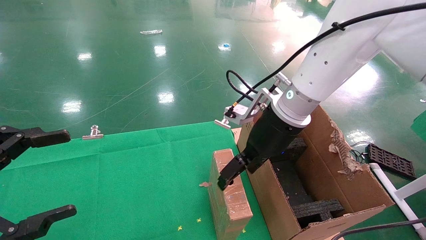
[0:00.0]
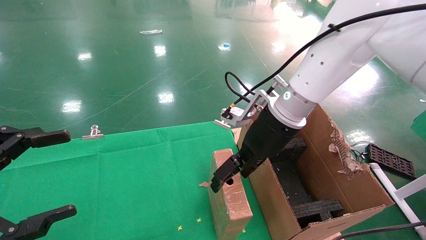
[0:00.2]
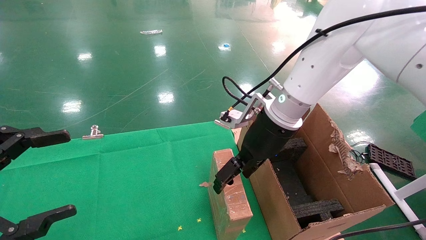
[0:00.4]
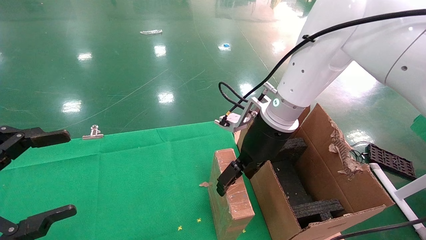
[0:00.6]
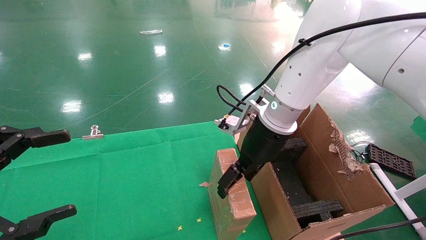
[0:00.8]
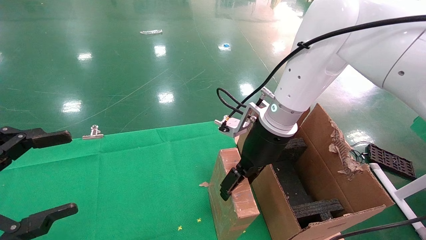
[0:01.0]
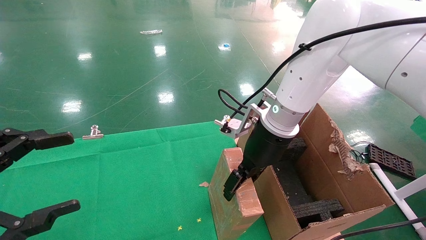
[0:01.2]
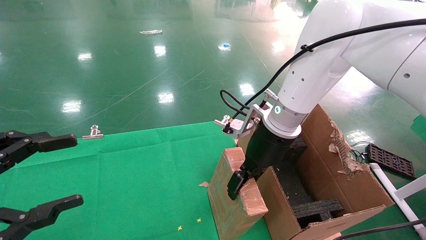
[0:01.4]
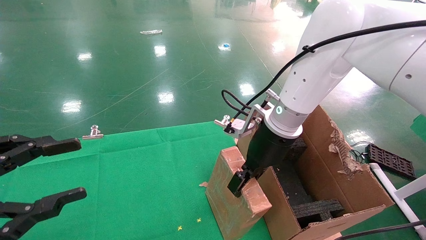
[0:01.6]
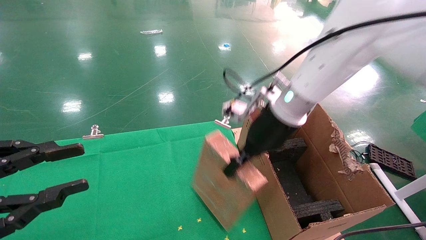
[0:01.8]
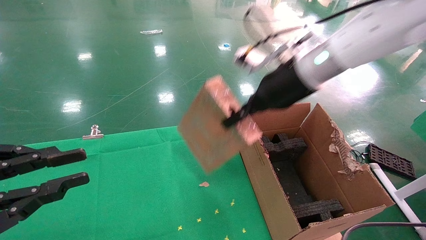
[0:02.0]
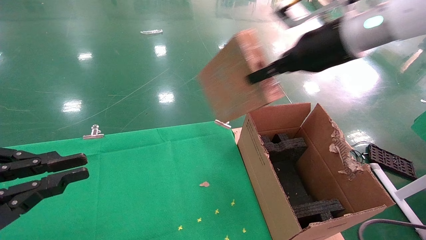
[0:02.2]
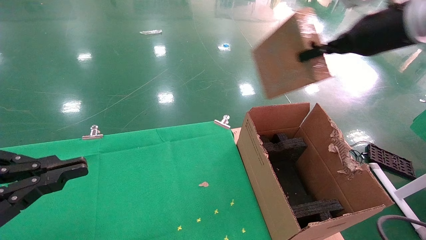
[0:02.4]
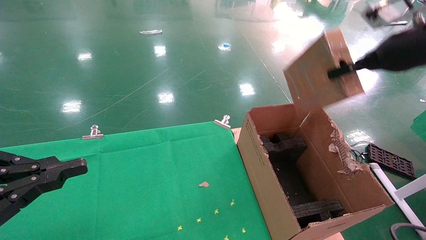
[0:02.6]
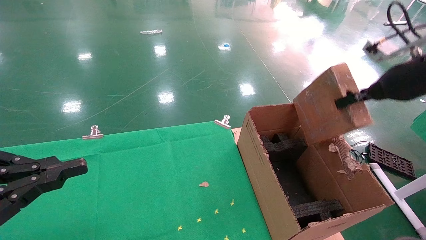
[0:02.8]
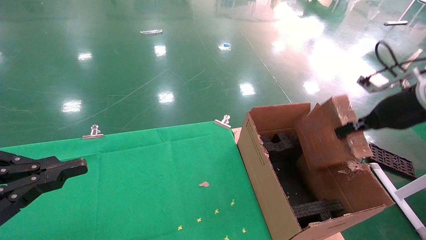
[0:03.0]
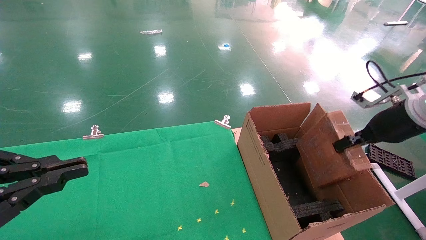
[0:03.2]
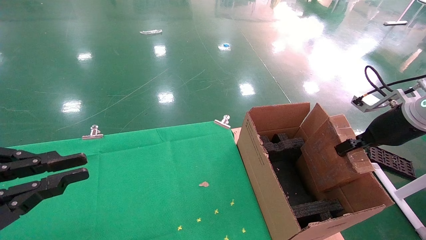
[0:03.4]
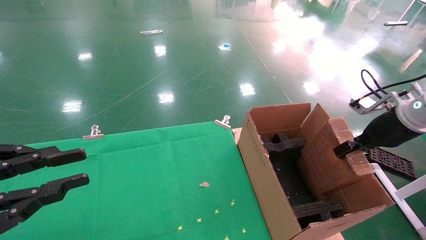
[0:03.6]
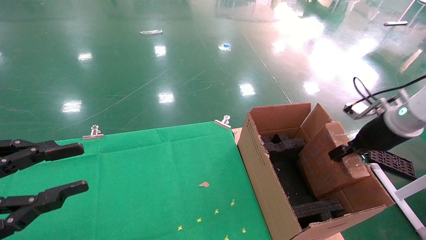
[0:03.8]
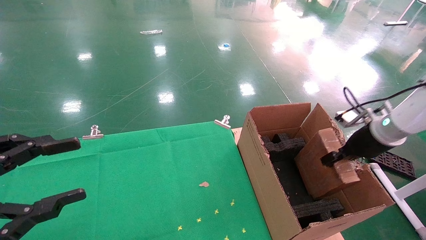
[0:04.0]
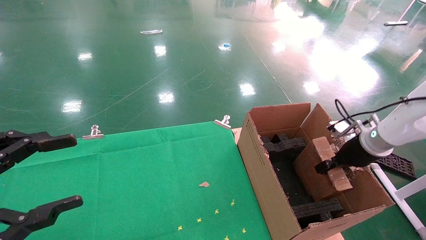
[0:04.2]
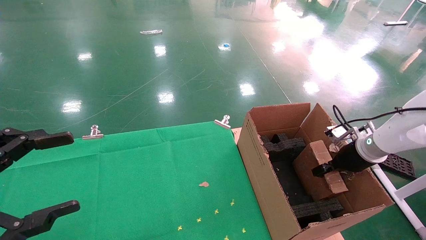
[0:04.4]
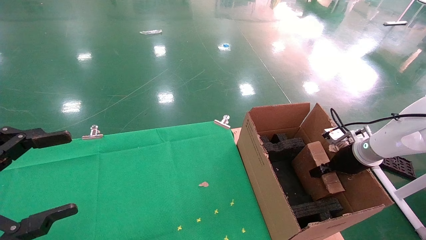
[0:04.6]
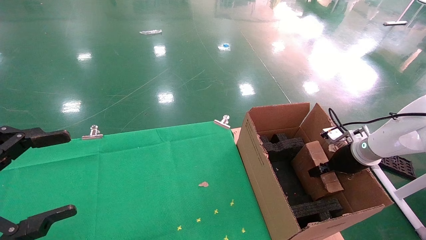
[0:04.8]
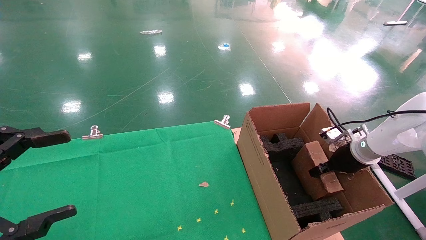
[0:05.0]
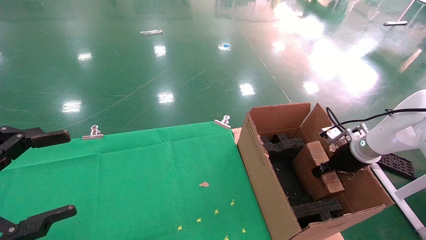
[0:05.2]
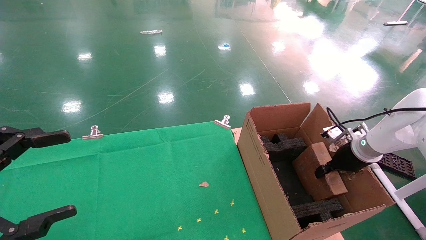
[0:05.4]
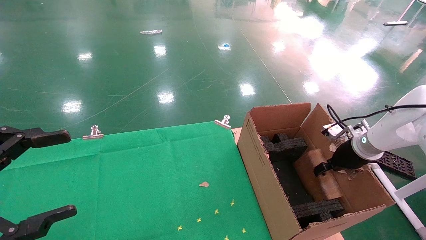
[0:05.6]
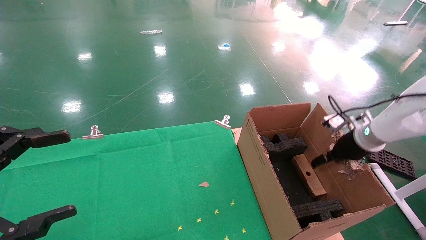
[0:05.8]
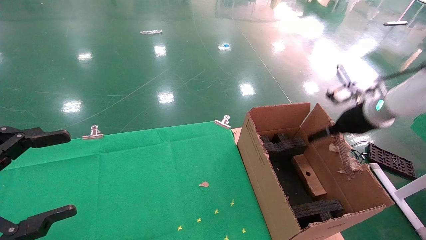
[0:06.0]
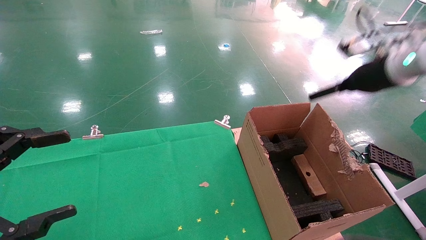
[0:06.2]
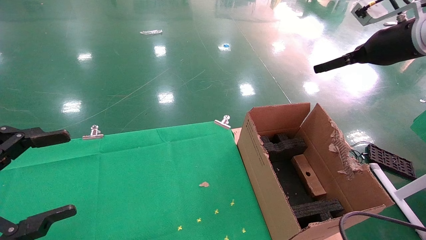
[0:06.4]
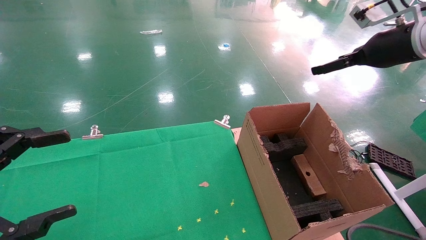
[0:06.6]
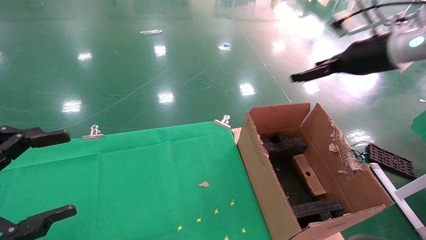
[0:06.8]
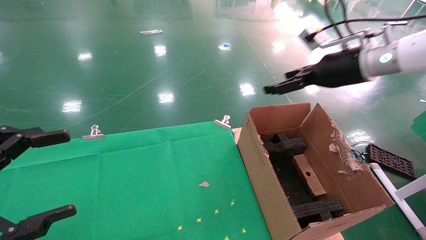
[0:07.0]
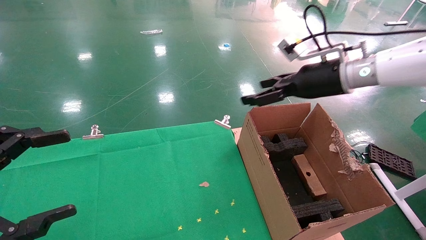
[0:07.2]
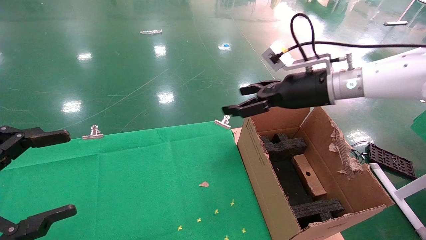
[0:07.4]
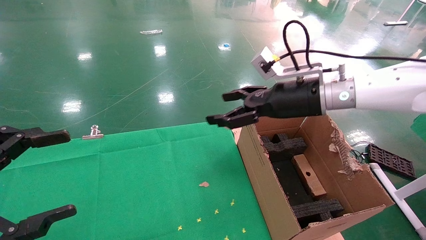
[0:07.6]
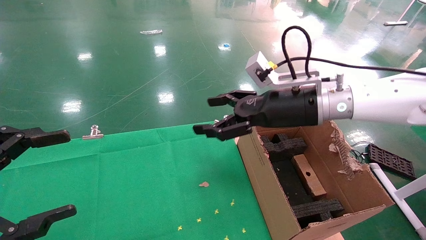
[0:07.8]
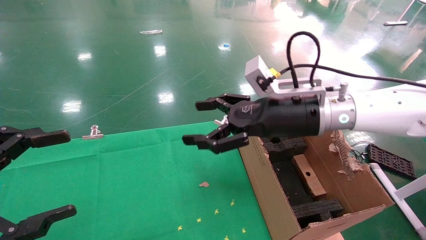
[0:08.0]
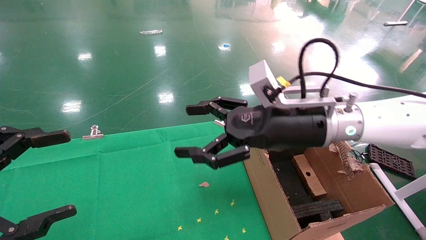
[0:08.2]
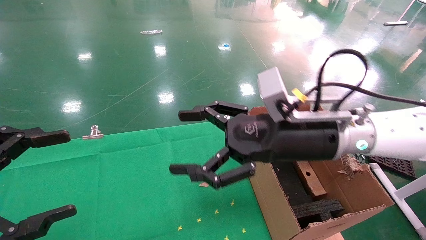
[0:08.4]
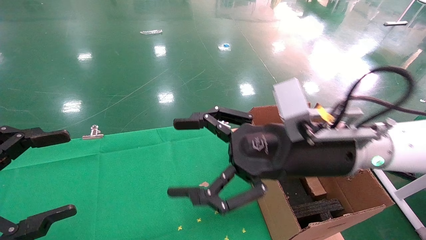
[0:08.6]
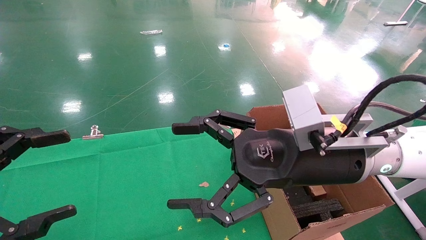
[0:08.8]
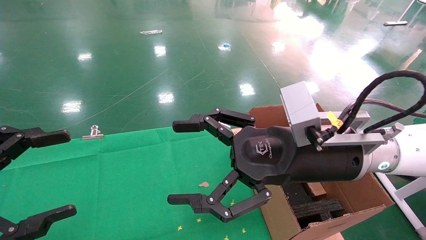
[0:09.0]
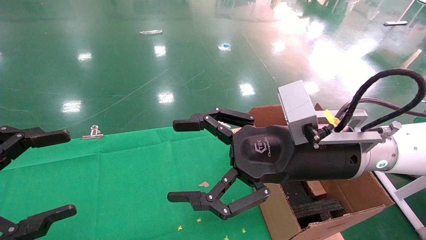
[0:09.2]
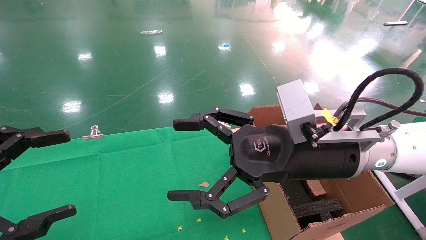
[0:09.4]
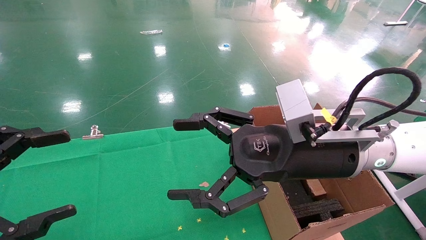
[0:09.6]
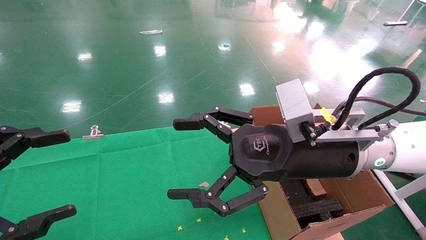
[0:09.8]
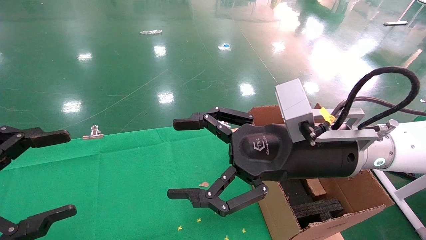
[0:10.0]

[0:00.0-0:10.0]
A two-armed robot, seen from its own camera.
Task of the whole recording: using a robotic arm to pick up a cardboard box and palace it the carton.
Step, 0:01.8 to 0:05.8: Place the mouse and the power cord paper box into the container.
0:00.0 to 0:01.4: The right gripper closes.
0:01.4 to 0:02.8: The left gripper closes. Meanwhile the right gripper travels to the right by about 25 cm, and closes its fingers.
0:02.8 to 0:04.2: The right gripper shifts approximately 20 cm downward; the left gripper opens.
0:04.2 to 0:05.8: The left gripper opens its fingers, while the right gripper opens its fingers.
0:05.8 to 0:07.2: The right gripper is displaced to the left and upward by about 20 cm, and opens.
0:07.2 to 0:08.6: The right gripper moves backward, to the left and downward, approximately 20 cm.
0:08.6 to 0:10.0: Both grippers stay put.

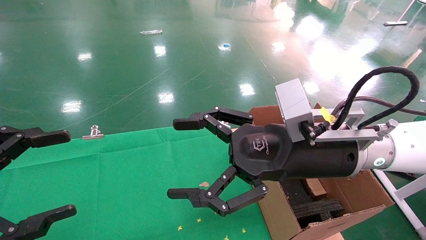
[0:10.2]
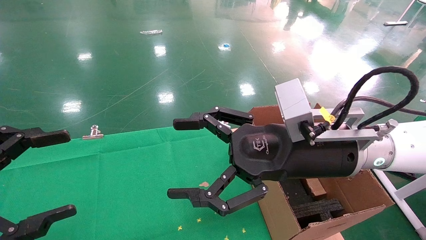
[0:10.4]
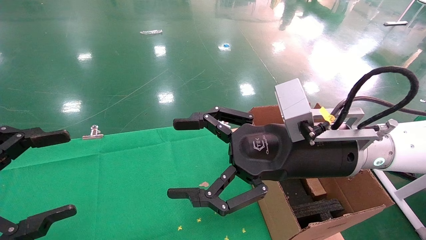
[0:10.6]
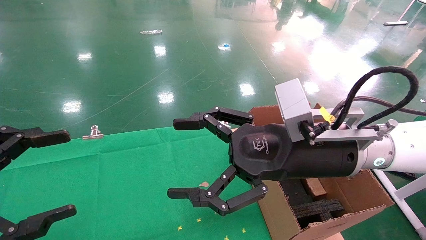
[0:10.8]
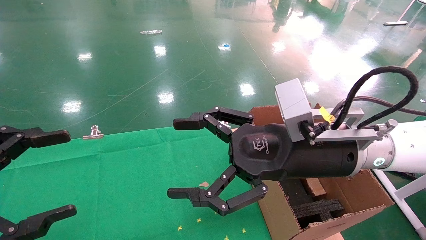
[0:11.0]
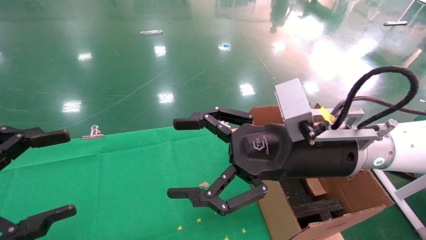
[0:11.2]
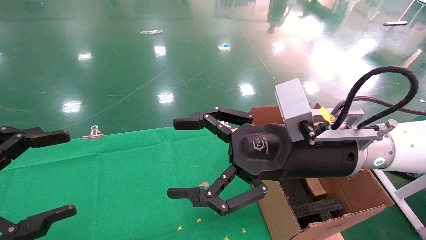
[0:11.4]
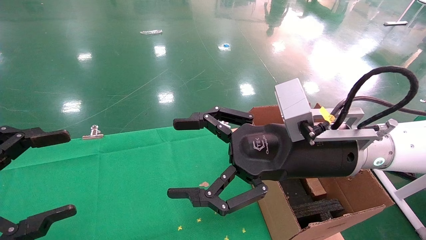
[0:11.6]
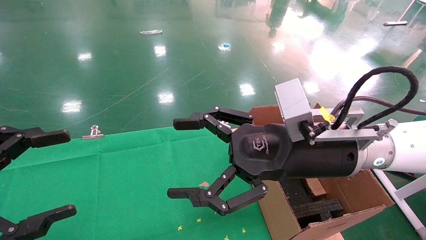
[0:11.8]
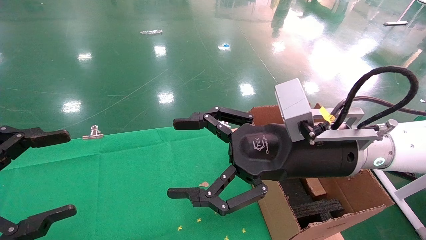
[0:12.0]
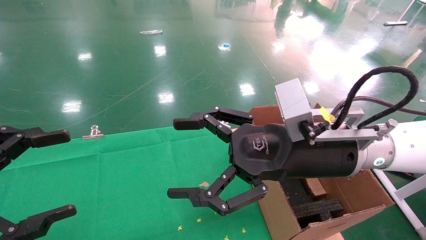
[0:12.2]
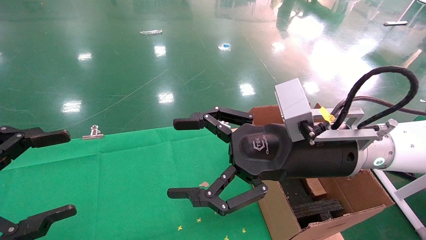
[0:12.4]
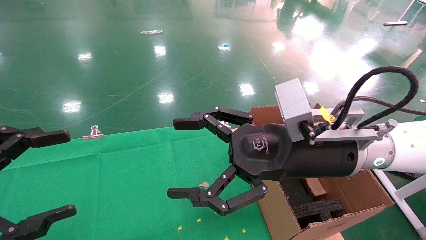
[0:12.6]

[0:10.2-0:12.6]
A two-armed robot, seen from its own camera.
Task of the whole recording: using a robotic arm to pick up a cardboard box and palace it the carton.
0:10.2 to 0:12.6: Both grippers stay about where they are.

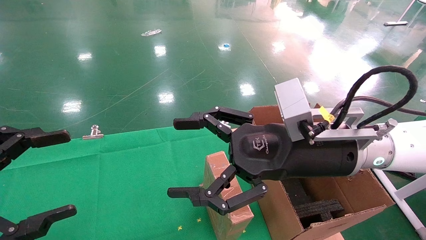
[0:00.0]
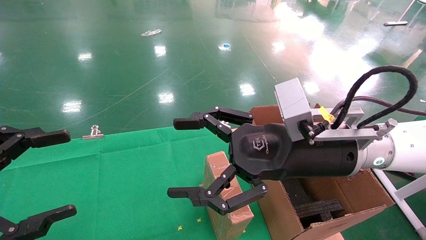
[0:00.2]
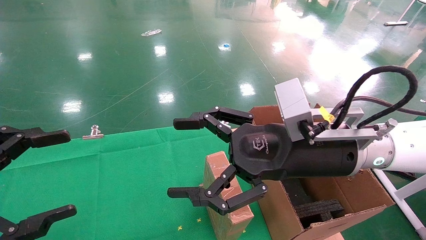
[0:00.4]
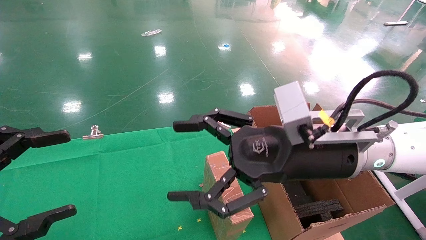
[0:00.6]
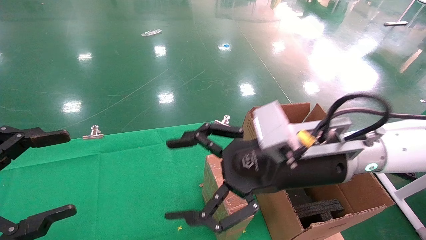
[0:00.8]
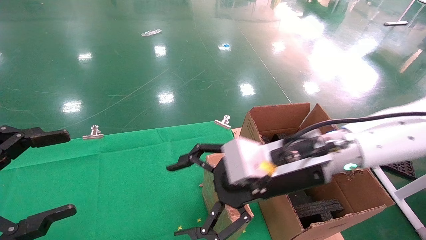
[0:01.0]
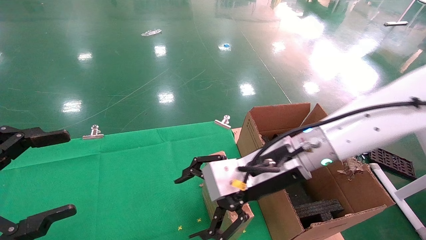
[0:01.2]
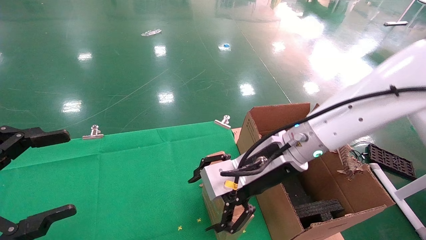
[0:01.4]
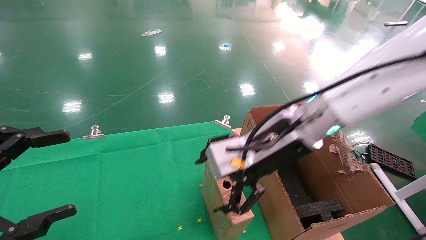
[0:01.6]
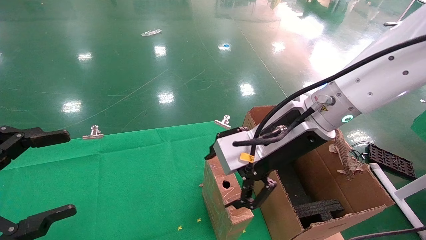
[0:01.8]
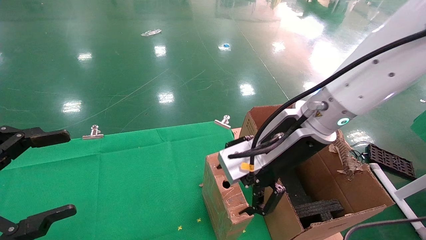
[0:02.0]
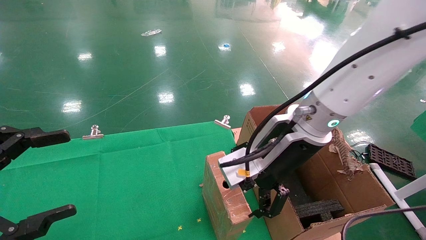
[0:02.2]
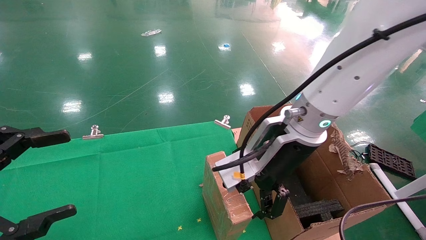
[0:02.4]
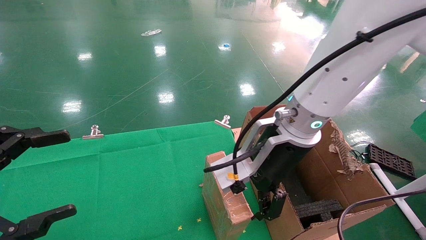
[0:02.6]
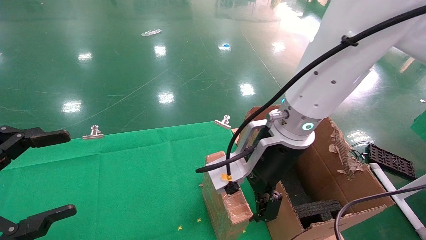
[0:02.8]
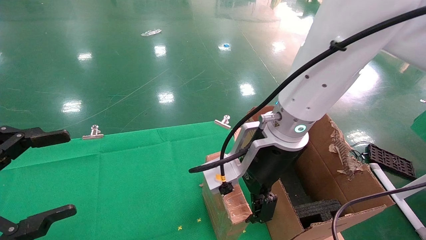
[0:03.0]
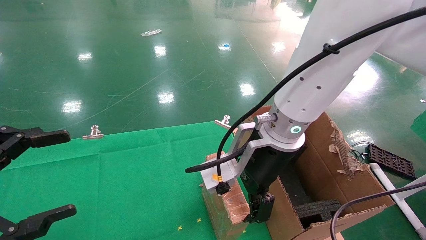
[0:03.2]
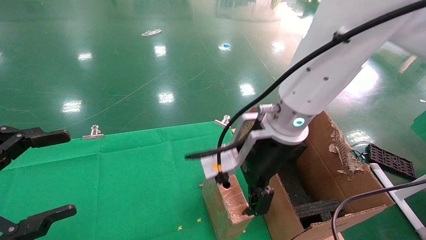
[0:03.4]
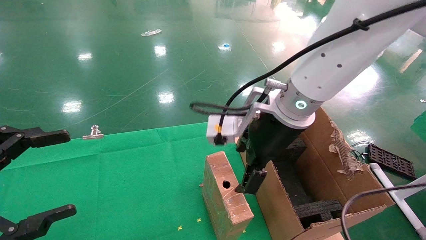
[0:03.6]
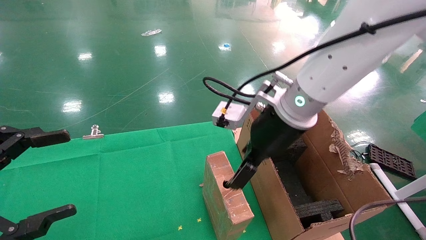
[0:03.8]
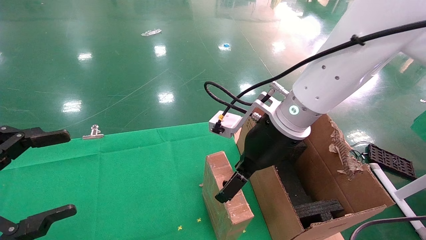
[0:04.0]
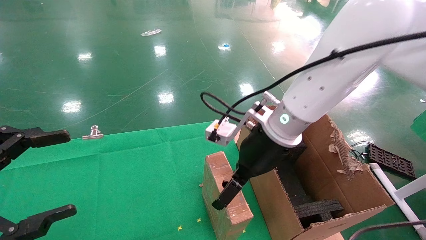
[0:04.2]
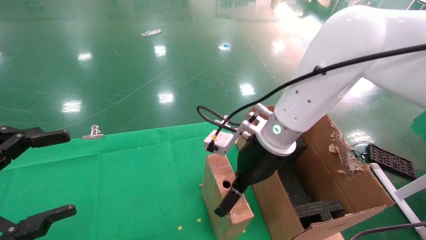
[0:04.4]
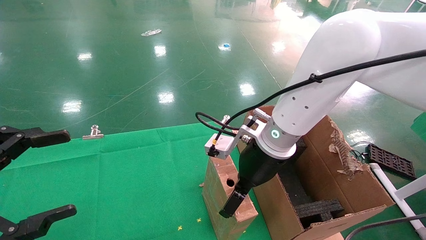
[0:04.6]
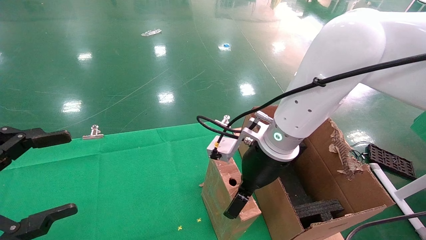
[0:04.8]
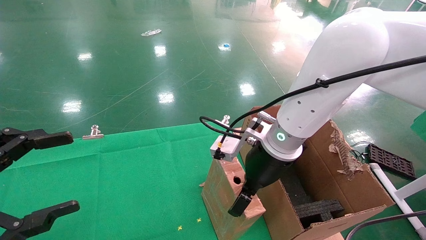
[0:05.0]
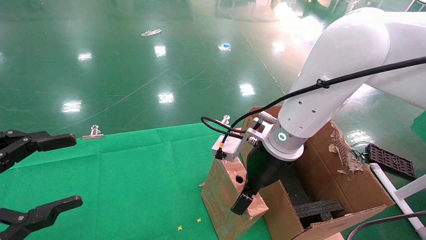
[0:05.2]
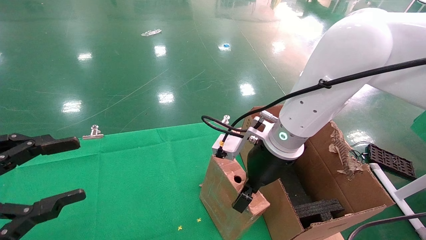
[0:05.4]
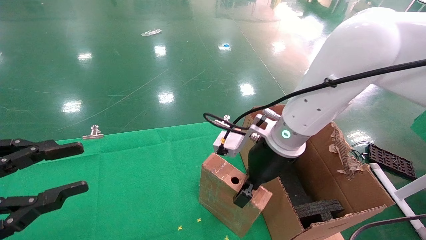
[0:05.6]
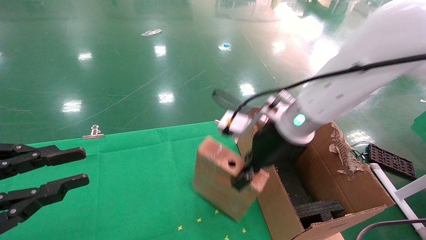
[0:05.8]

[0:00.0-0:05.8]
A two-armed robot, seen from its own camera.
Task of the whole recording: using a robotic arm to pick up a cardboard box and palace it the carton.
Step, 0:01.0 to 0:05.6: Pick up the mouse and the power cord paper box.
0:00.0 to 0:01.4: The right gripper ends up approximately 5 cm from where it was.
0:02.8 to 0:04.4: The right gripper ends up some 5 cm from where it was.
0:04.4 to 0:05.8: The left gripper closes. The right gripper moves approximately 5 cm, and closes its fingers.
